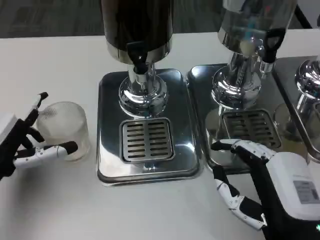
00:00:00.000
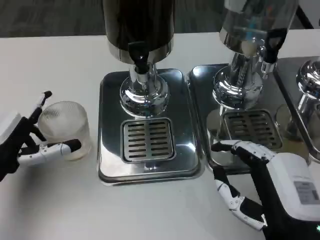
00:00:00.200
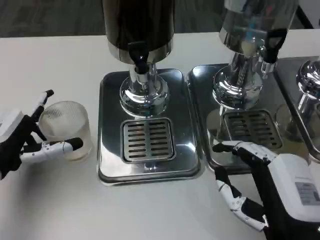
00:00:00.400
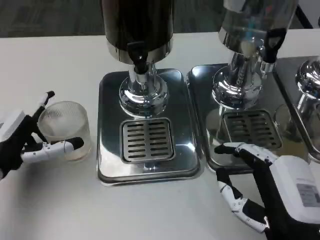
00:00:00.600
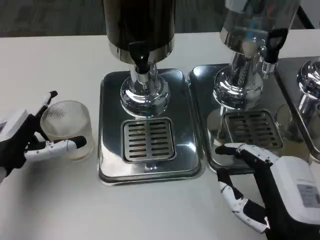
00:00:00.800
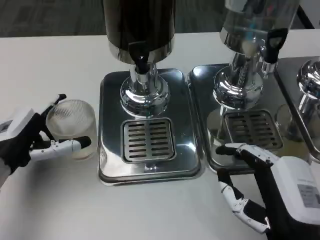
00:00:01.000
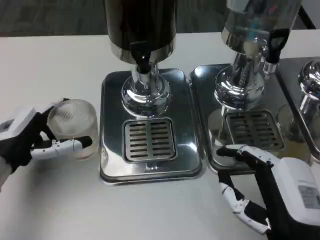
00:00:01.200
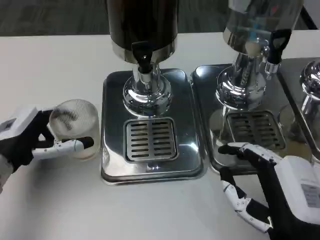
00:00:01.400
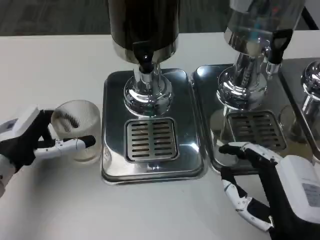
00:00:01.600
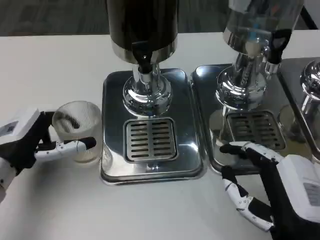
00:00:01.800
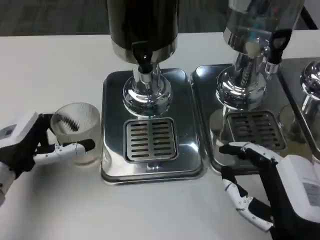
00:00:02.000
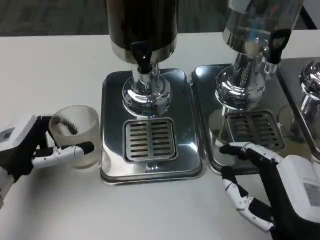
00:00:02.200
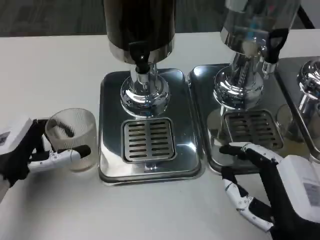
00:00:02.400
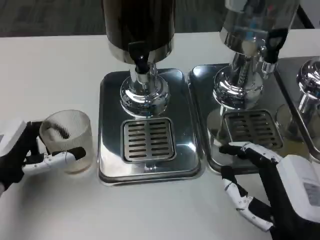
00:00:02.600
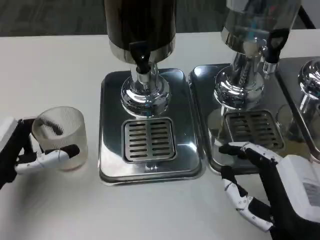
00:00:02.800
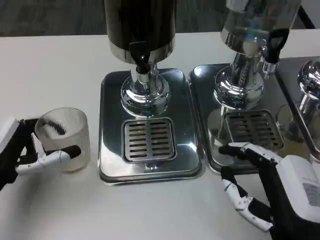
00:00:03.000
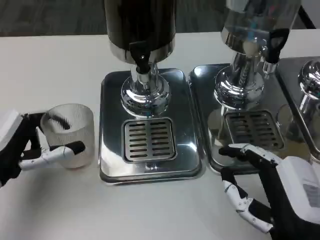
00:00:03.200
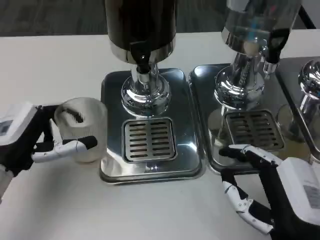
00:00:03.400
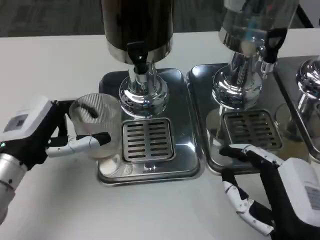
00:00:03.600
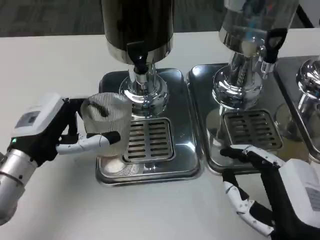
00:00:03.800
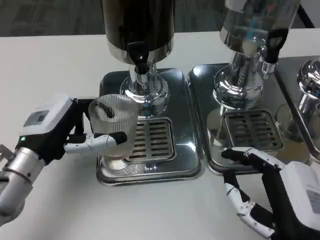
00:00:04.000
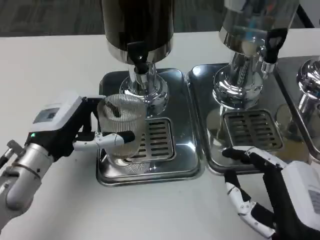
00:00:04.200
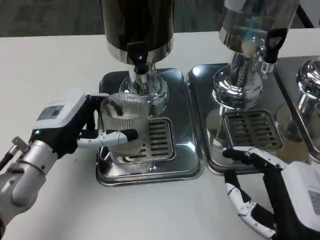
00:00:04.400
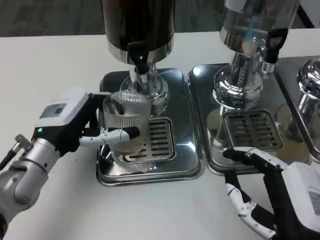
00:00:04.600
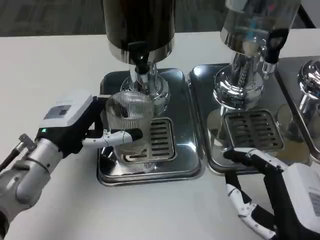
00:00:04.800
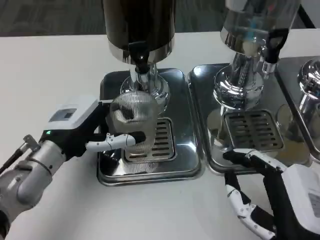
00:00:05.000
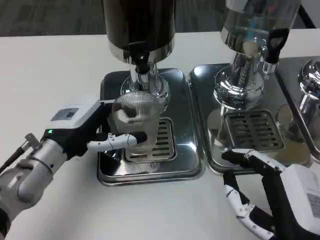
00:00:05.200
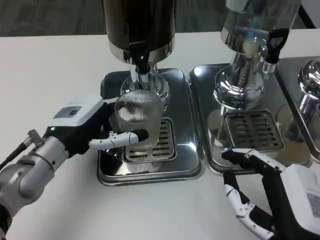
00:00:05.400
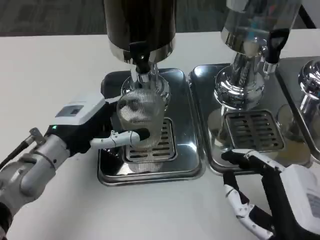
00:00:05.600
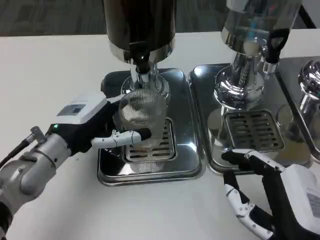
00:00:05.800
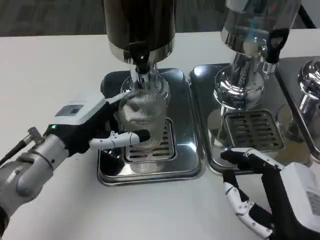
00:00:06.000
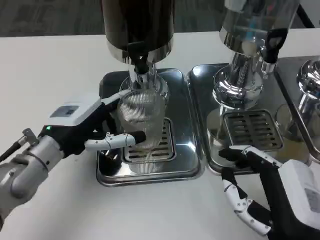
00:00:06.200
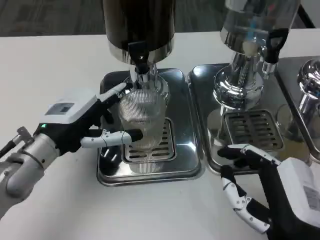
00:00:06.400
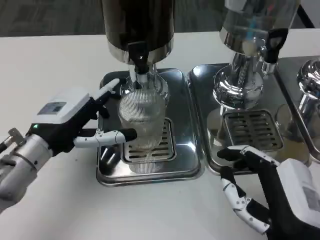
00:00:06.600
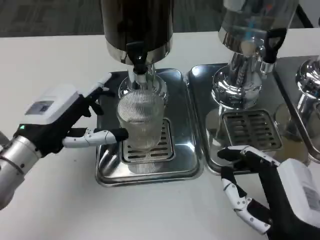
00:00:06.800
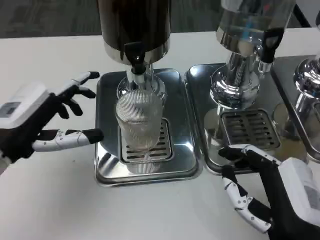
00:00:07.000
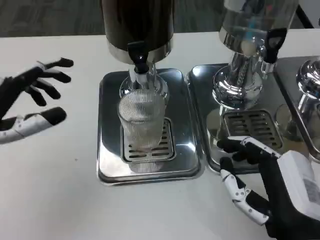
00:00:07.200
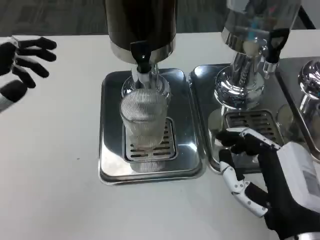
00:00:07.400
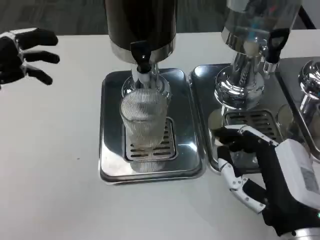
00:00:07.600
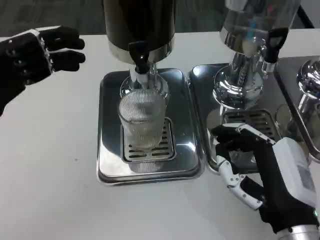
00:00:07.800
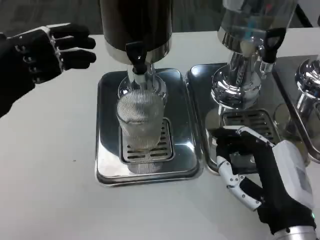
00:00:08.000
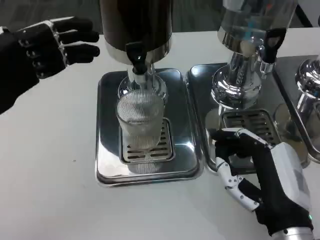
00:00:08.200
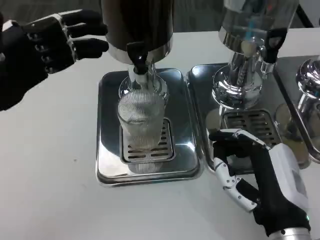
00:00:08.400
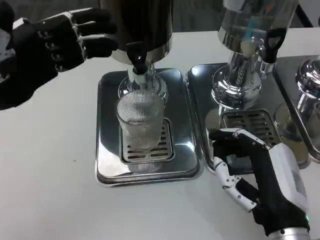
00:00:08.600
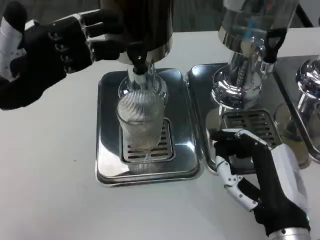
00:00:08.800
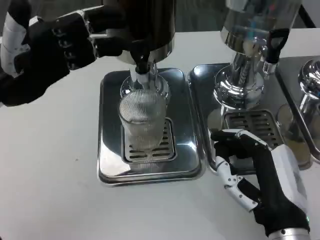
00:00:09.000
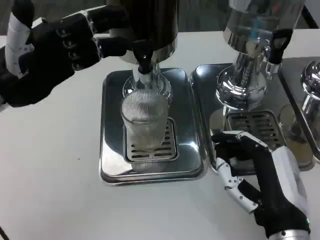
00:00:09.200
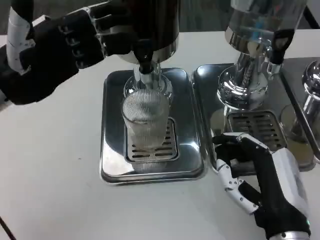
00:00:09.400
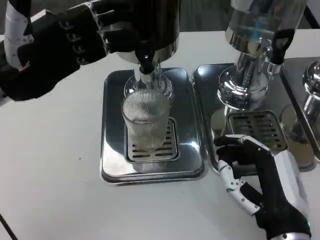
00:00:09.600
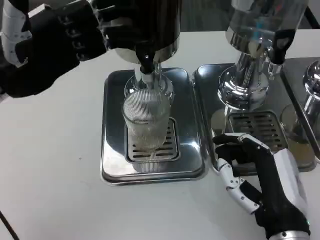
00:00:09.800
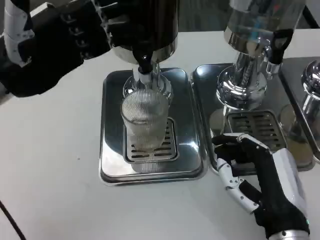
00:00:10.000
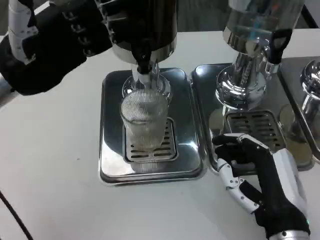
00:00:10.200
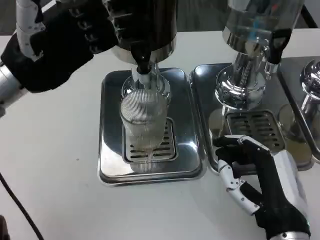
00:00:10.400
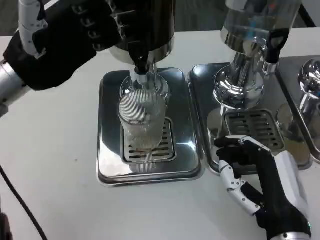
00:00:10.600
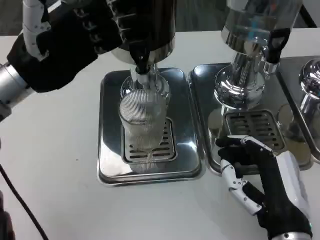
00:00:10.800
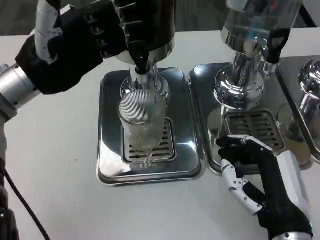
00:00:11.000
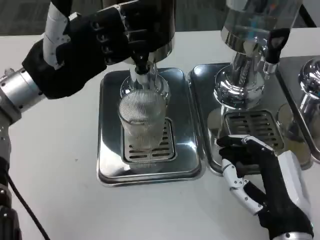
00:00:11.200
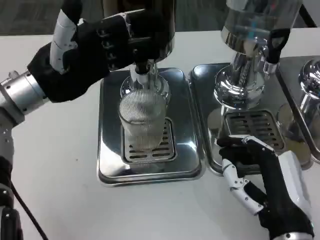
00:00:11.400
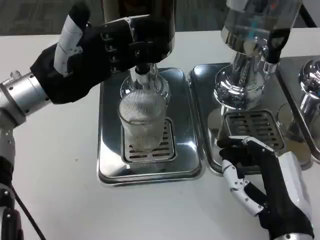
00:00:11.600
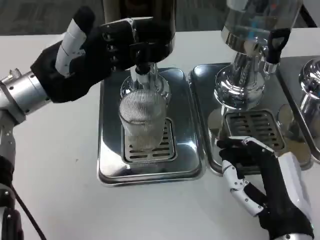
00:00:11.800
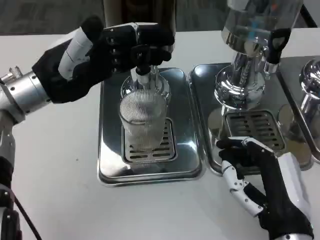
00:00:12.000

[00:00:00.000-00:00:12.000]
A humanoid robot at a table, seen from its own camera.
Task of the whole recording: Grasp the cup under the faucet to collect the drink, then remove the cup.
00:00:03.000 to 00:00:04.400: The left hand moves to the right and forward, roughly 10 cm.
00:00:04.400 to 00:00:06.000: The hands stay close to where they were, moving slightly.
00:00:06.000 to 00:00:07.600: The left hand travels to the left, upward and backward by roughly 15 cm.
00:00:07.600 to 00:00:09.000: The left hand travels forward by some 5 cm.
00:00:09.000 to 00:00:10.400: The hands stay close to where they were, moving slightly.

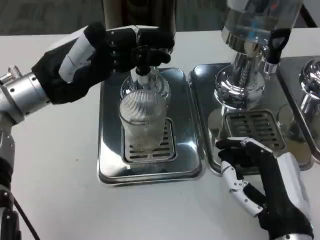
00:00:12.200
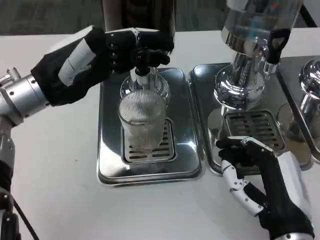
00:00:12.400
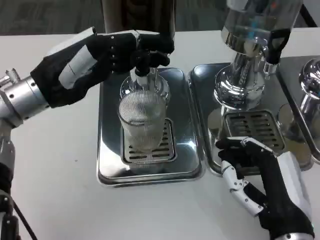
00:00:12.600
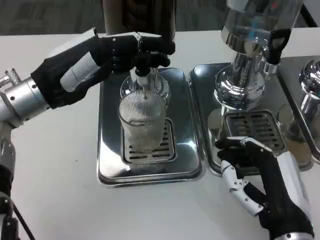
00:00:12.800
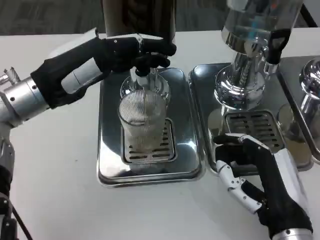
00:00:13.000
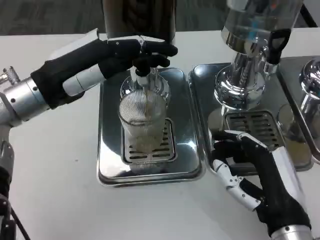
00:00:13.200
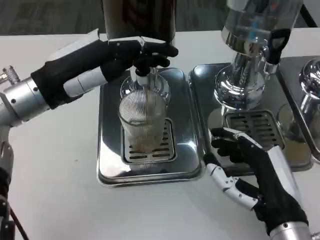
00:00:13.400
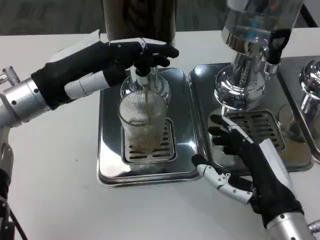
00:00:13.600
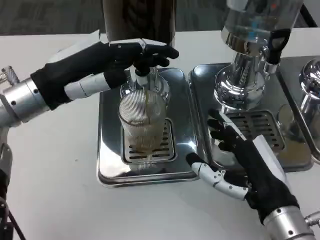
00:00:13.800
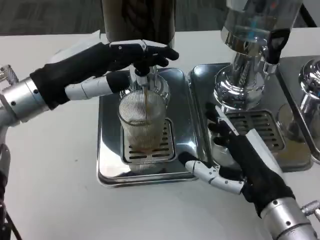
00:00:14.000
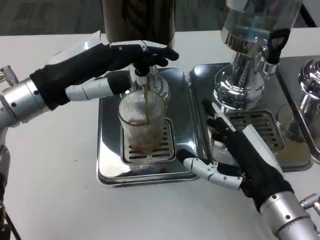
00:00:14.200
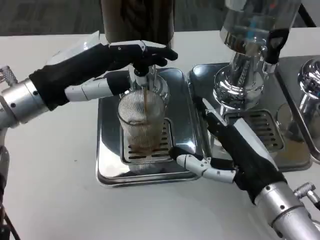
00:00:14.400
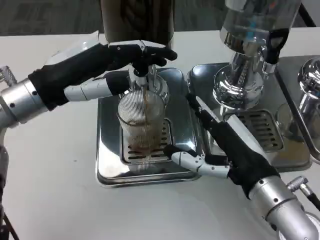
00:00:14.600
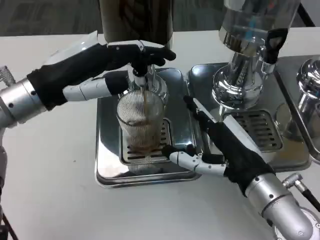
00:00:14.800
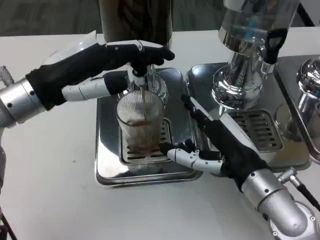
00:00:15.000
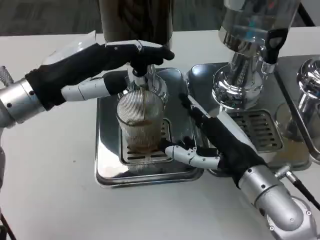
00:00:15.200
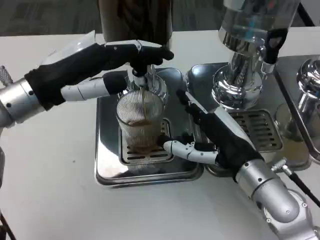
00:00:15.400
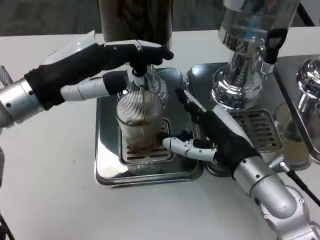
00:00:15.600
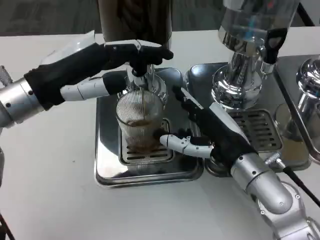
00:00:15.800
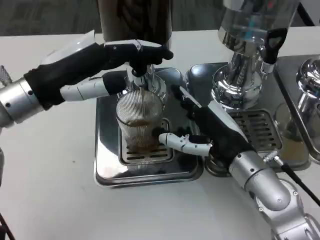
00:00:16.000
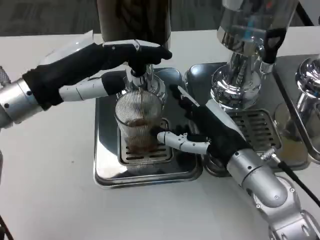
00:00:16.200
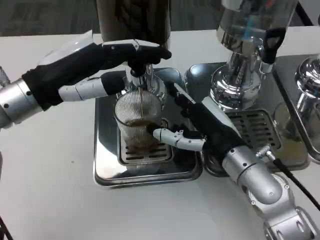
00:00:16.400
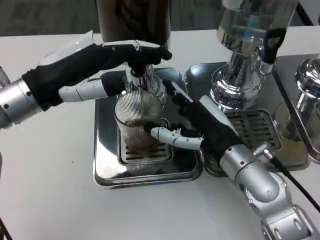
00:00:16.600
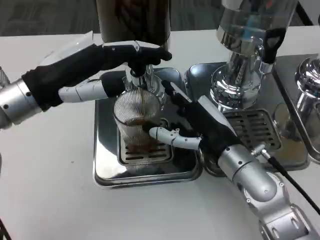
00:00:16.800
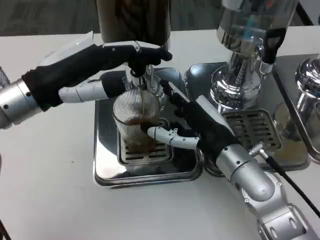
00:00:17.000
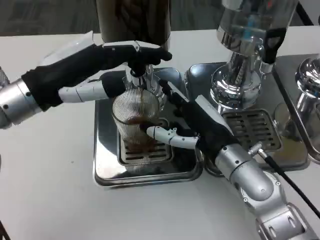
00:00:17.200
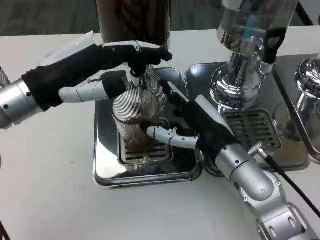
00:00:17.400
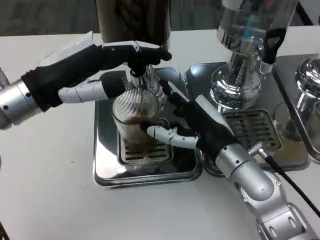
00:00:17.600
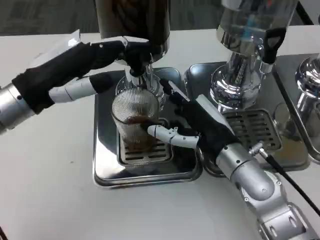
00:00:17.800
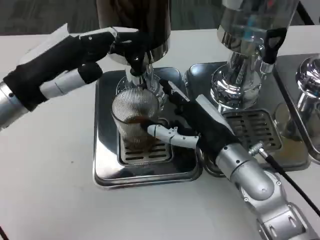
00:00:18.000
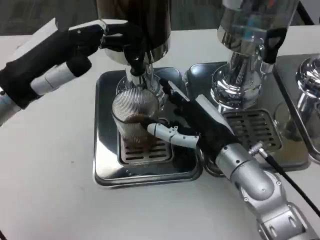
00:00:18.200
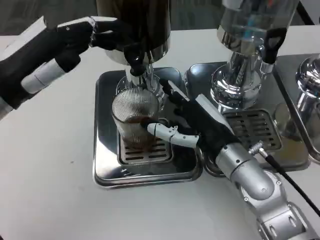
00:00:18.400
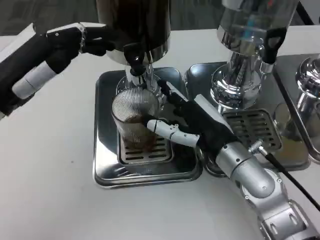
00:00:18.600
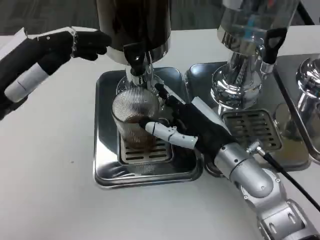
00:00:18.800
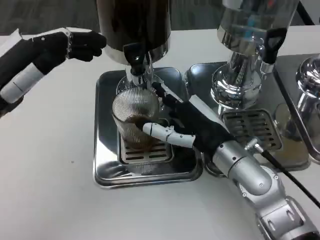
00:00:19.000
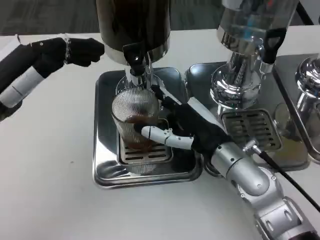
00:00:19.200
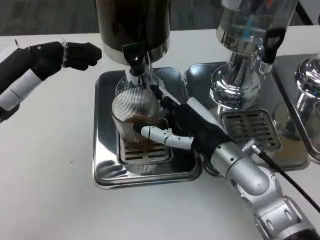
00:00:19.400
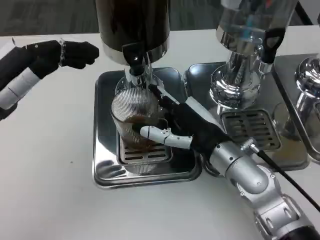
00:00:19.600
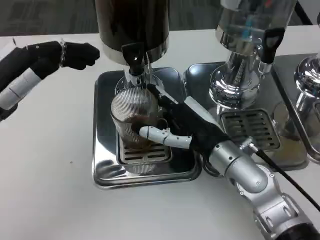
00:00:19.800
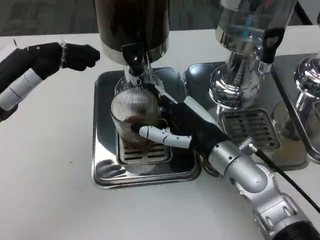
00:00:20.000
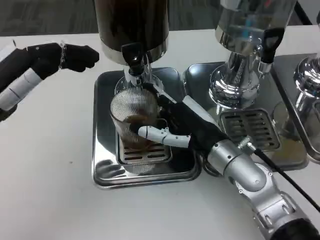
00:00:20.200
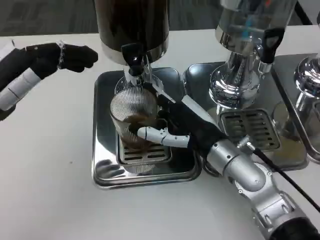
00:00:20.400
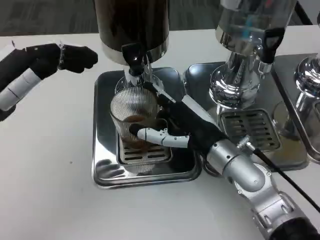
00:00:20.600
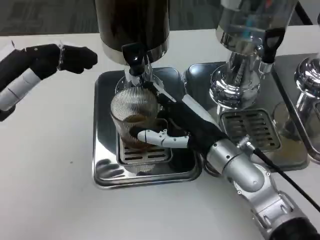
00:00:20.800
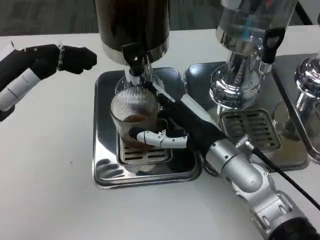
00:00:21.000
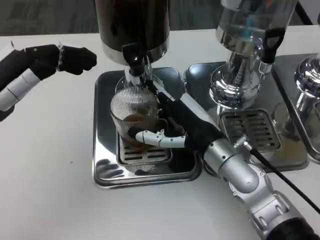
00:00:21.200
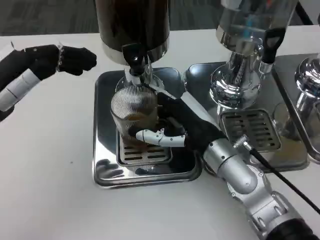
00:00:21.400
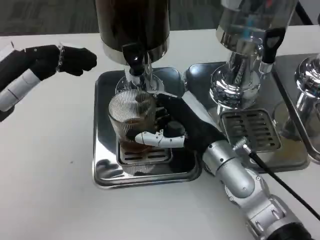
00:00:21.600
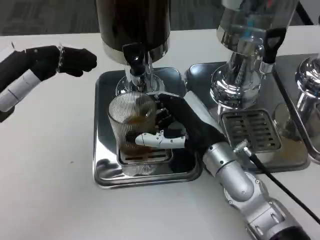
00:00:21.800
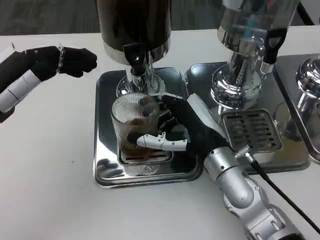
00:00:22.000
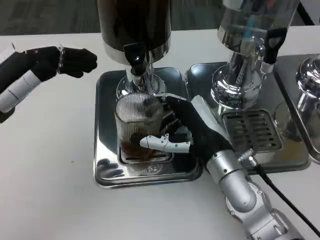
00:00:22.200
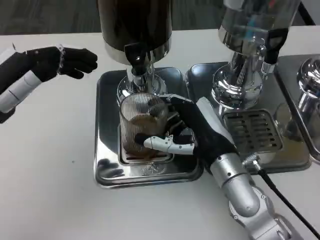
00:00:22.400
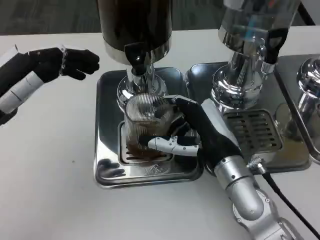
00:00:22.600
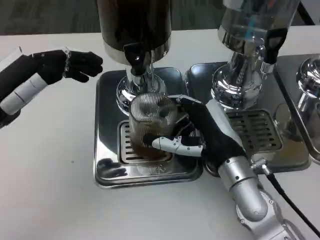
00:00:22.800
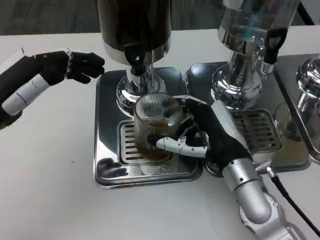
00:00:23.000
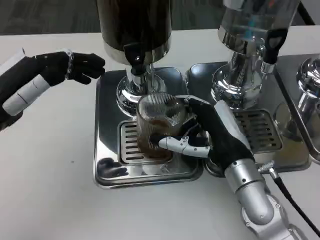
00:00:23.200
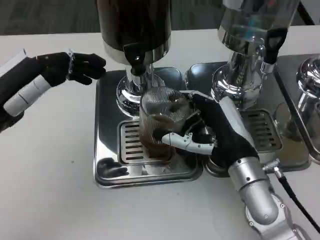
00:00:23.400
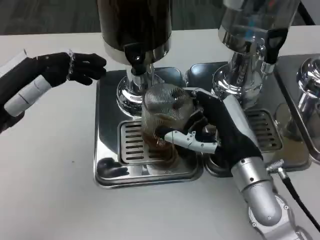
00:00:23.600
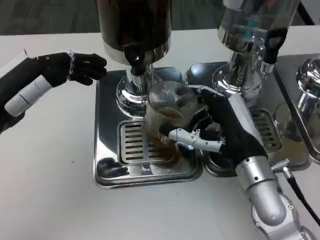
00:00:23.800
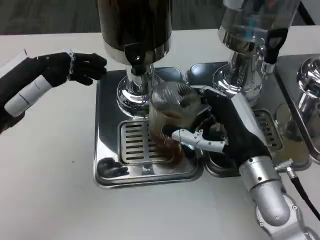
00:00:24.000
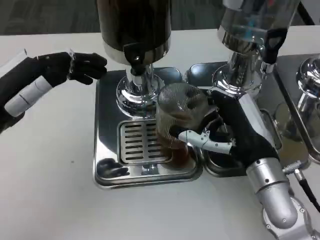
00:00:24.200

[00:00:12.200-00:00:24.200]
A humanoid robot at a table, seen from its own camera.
Task of the whole recording: Grasp the cup under the faucet to collect the drink, then remove the cup.
00:00:13.800 to 00:00:15.200: The right hand travels forward by some 5 cm.
00:00:15.200 to 00:00:16.600: The hands move only a little.
00:00:19.800 to 00:00:21.200: The two hands keep their place.
